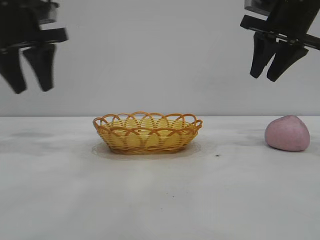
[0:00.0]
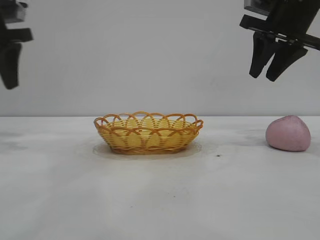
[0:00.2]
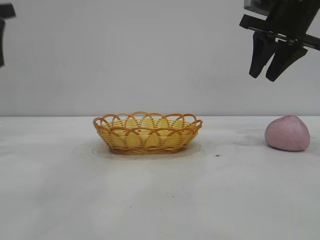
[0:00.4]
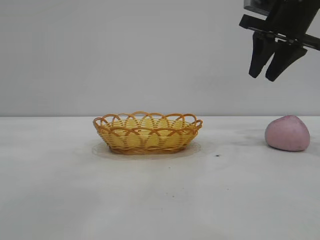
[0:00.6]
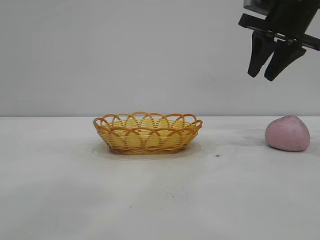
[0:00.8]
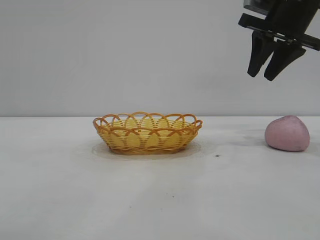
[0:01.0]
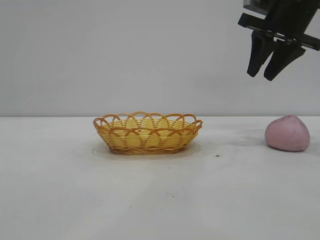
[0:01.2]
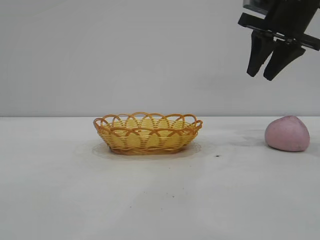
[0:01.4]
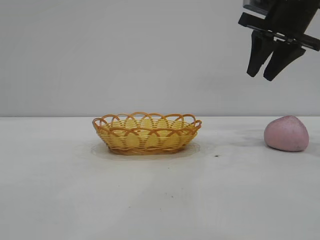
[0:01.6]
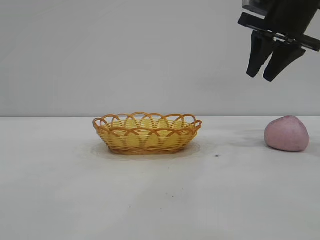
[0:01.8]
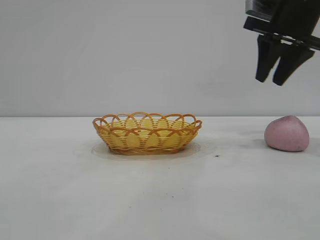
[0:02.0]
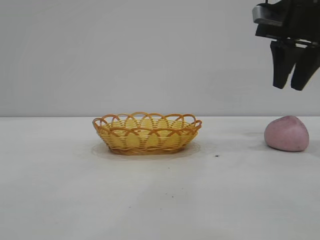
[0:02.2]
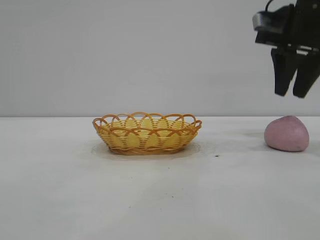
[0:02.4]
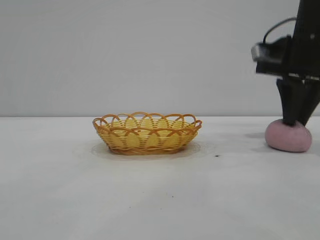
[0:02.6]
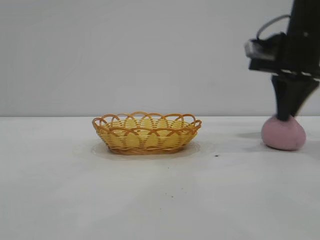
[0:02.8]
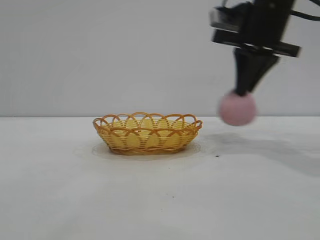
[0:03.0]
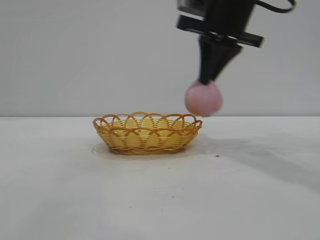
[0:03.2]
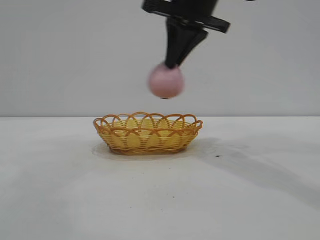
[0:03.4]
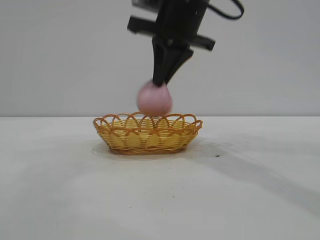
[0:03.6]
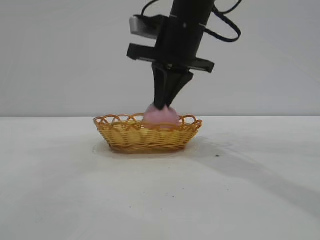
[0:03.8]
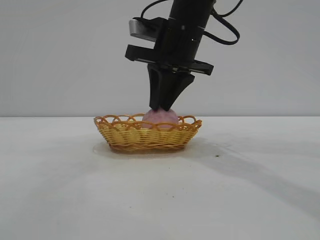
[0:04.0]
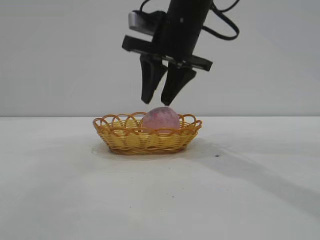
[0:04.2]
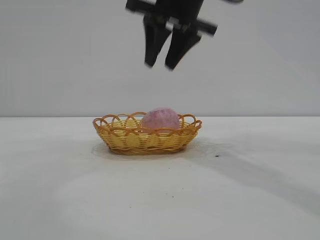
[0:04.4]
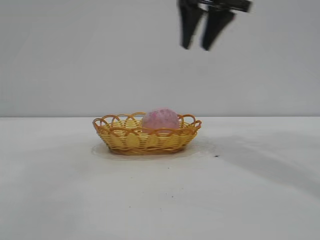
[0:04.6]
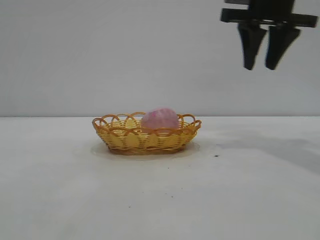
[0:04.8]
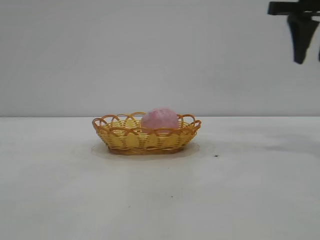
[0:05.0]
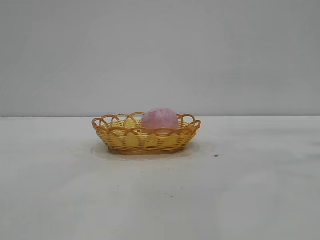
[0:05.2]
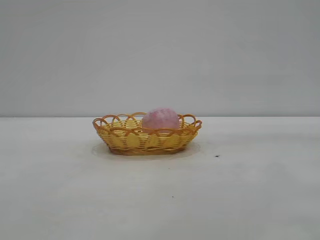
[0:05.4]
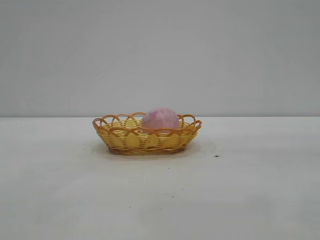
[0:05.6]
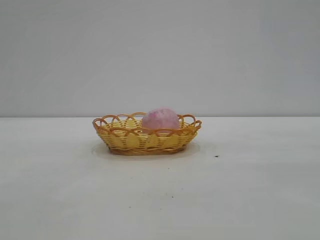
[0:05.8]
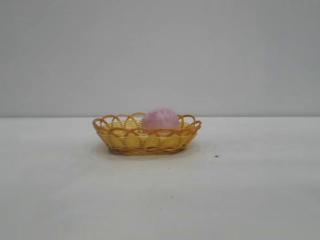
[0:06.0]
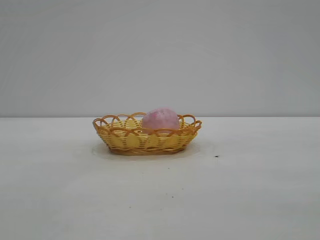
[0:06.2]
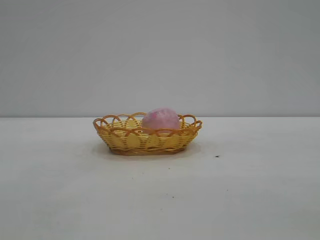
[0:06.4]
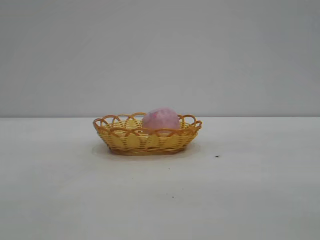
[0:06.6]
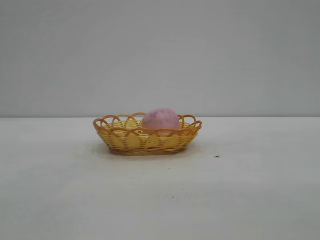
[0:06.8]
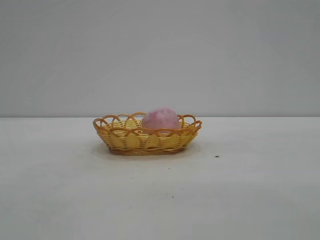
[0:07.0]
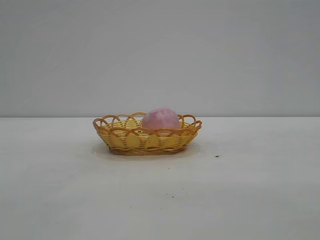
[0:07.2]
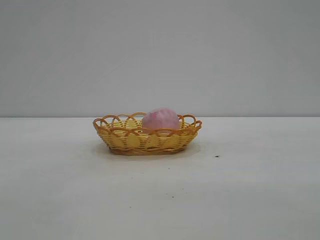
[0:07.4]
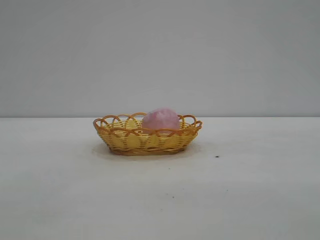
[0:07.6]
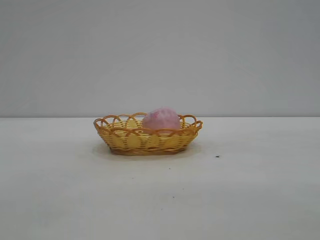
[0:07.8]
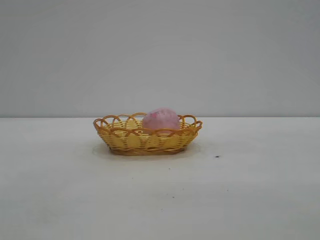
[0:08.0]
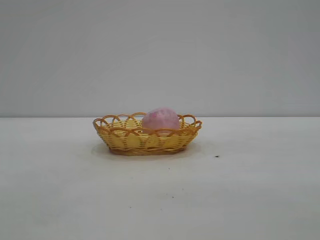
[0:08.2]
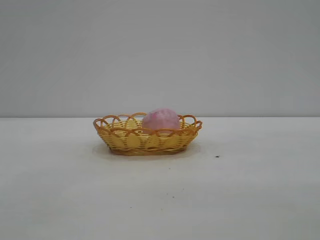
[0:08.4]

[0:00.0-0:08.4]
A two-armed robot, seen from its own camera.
Task of the whole recording: pick up the peach and put it into the basket.
Step, 0:00.0 to 0:02.8: Pick up the peach.
Step, 0:03.0 to 0:04.4: place the peach into the basket.
